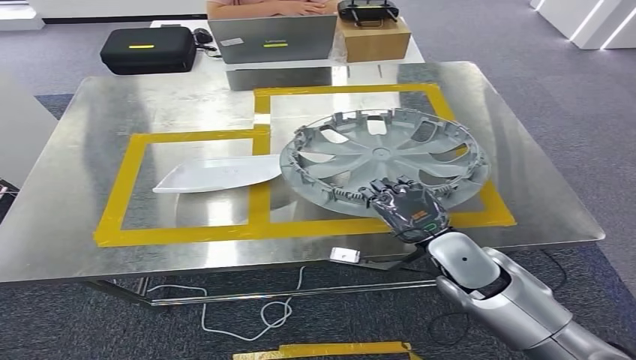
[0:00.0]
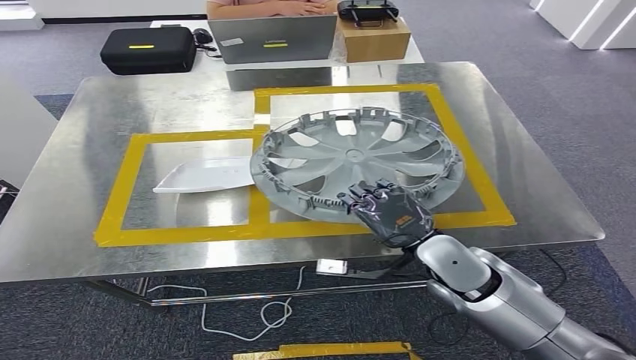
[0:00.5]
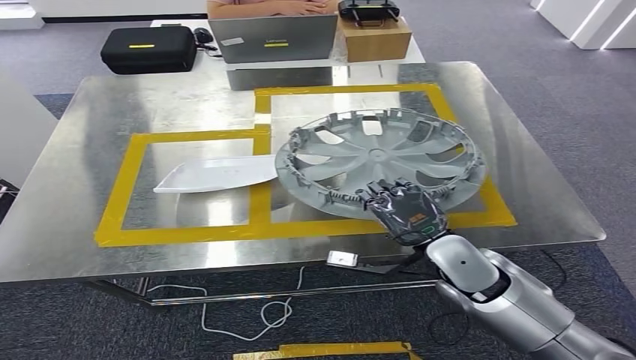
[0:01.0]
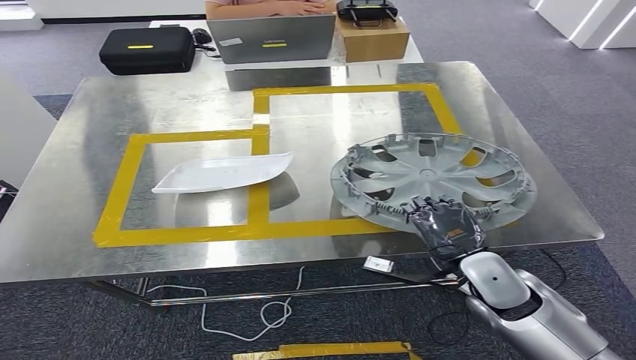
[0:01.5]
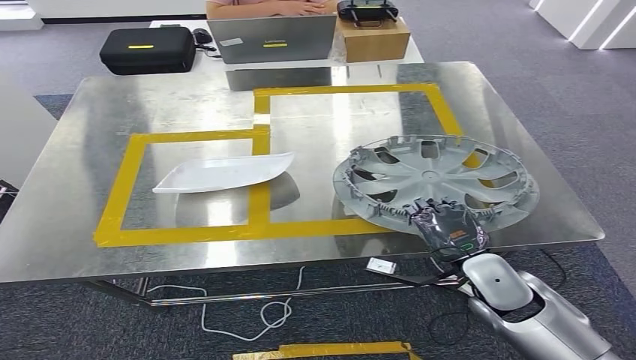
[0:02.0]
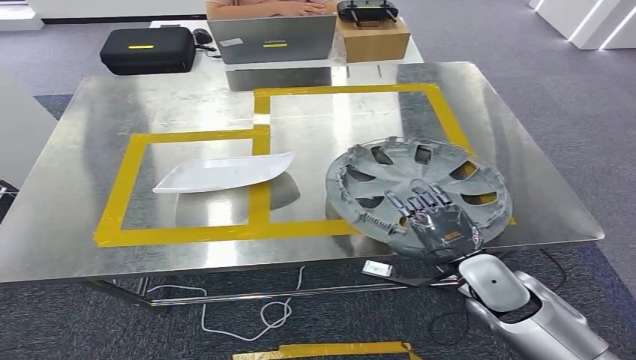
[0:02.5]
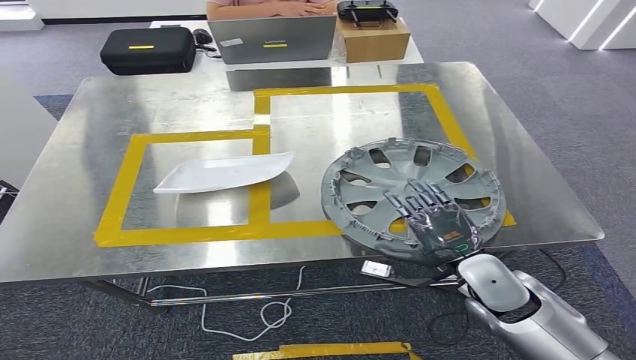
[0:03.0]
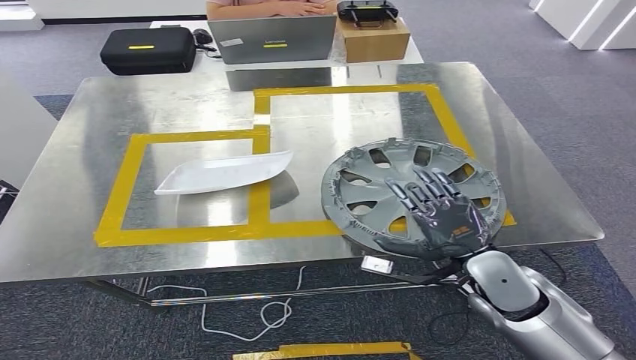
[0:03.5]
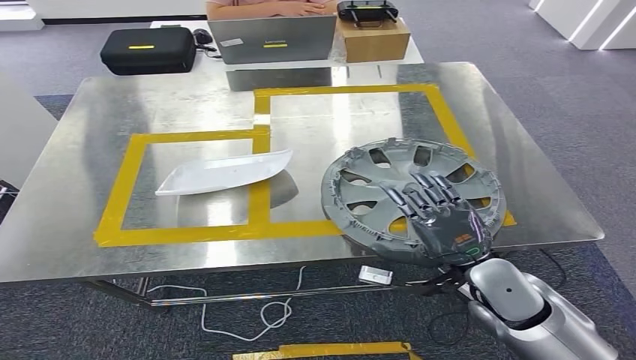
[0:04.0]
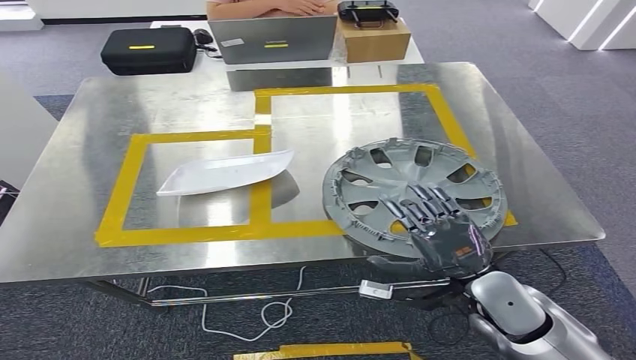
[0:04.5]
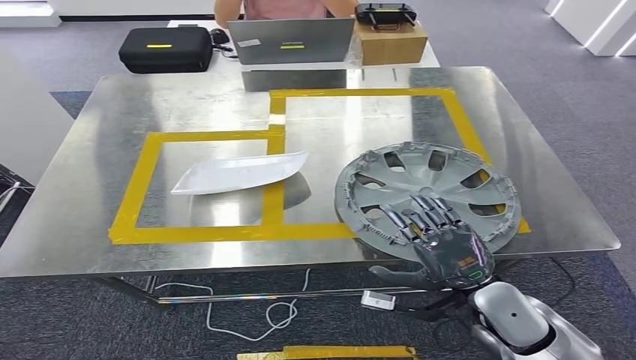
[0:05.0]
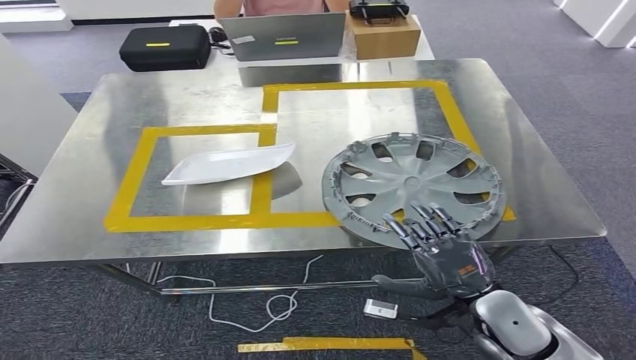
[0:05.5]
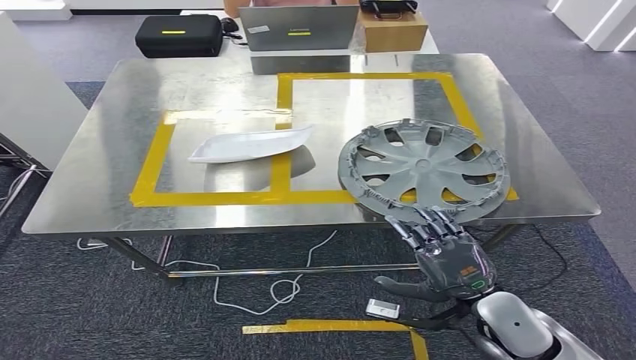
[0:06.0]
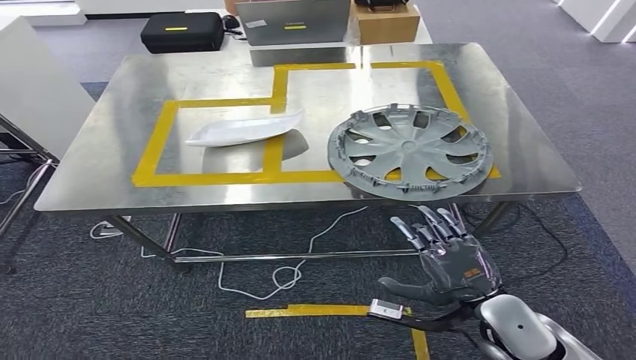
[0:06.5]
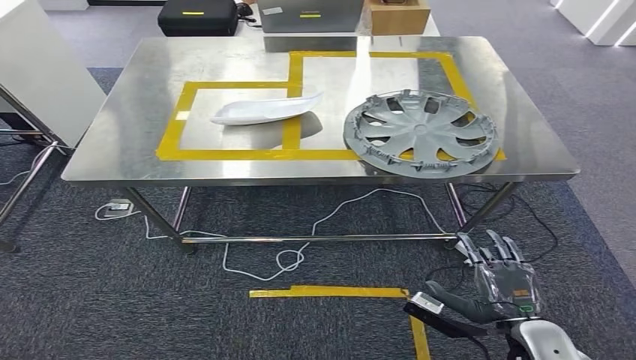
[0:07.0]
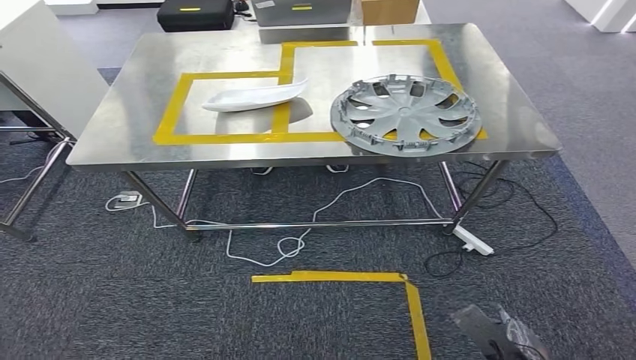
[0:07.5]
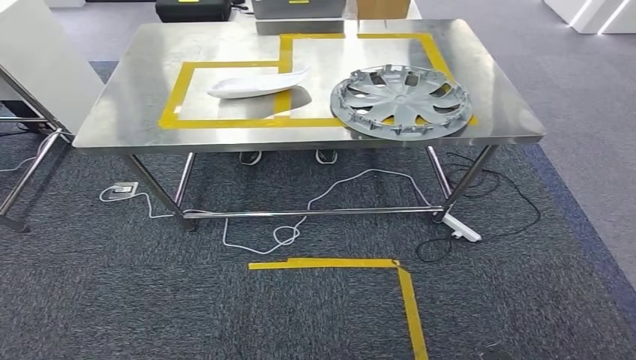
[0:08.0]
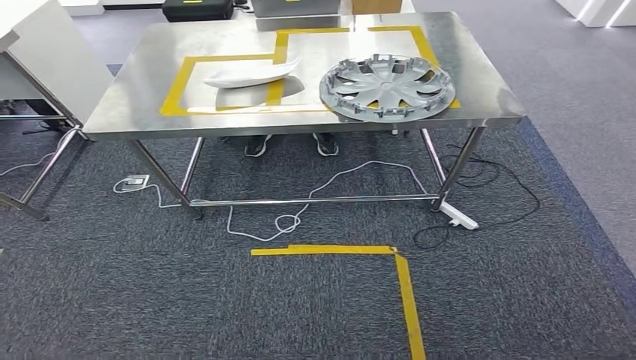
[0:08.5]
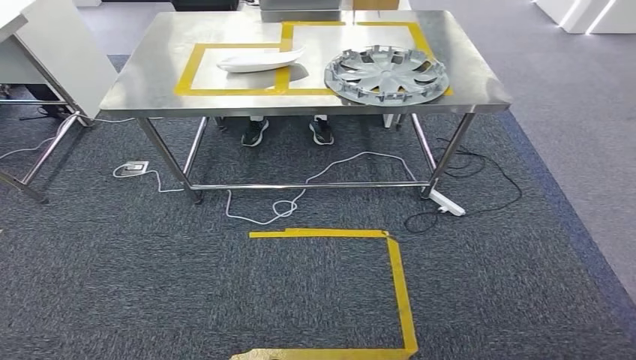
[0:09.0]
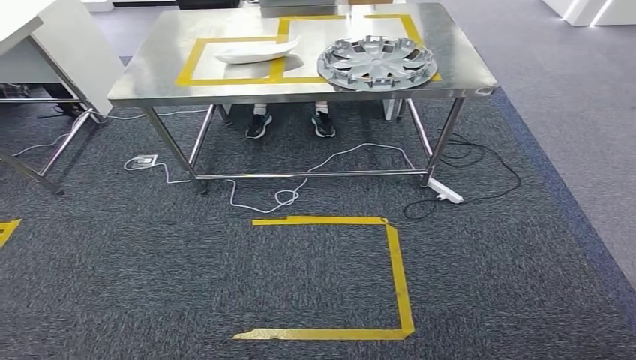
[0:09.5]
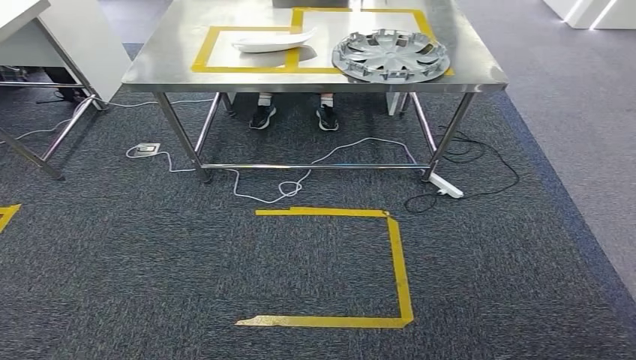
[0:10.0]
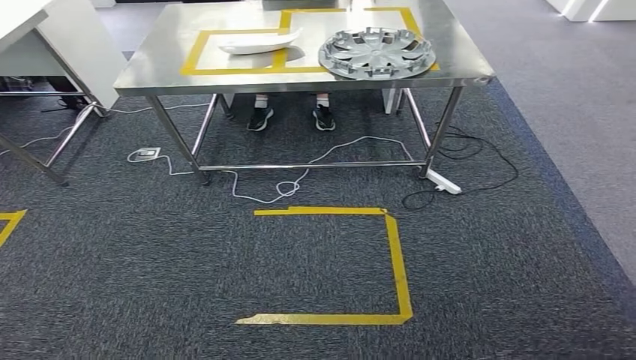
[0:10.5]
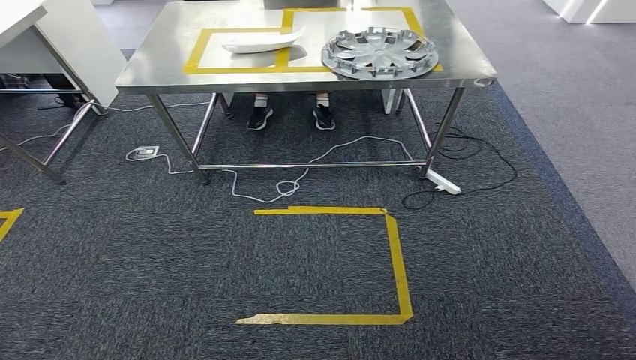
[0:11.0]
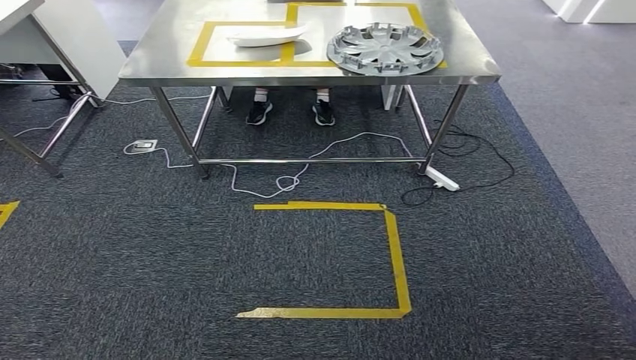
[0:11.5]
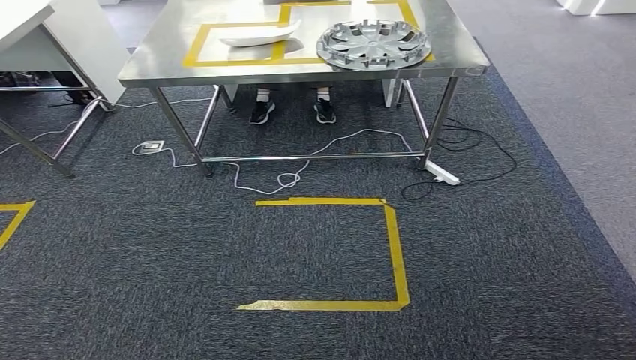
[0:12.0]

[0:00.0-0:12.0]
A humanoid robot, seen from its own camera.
0:00.0 to 0:02.0: The right hand changes place by about 5 cm.
0:02.0 to 0:04.0: The hands make only small movements.
0:10.0 to 0:12.0: The hands stay close to where they were, moving slightly.

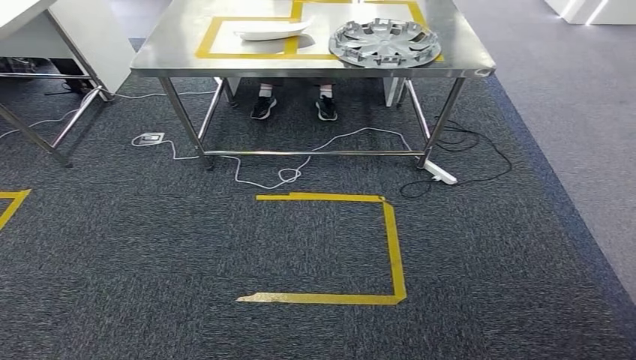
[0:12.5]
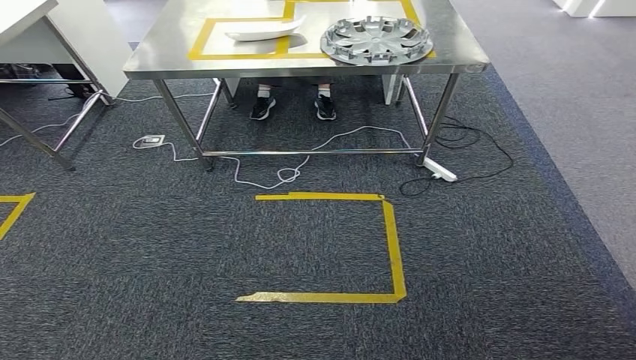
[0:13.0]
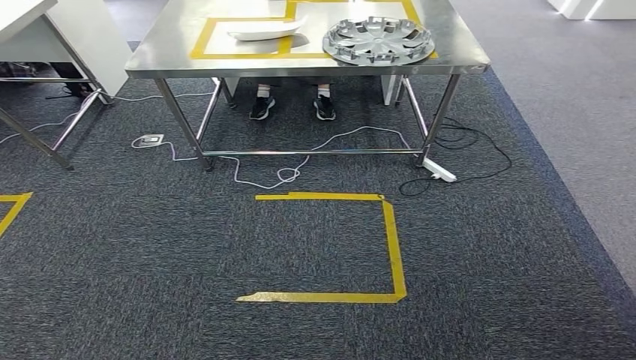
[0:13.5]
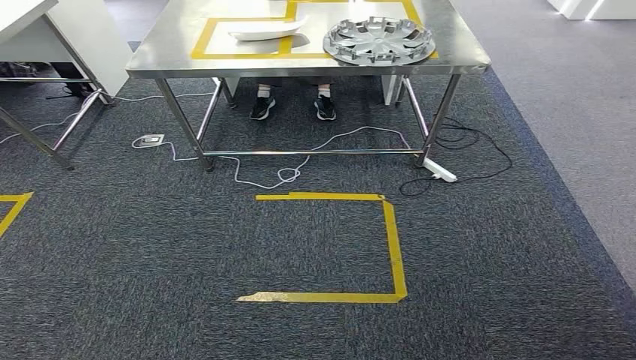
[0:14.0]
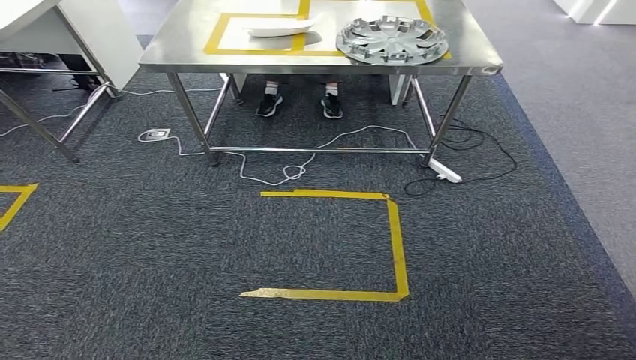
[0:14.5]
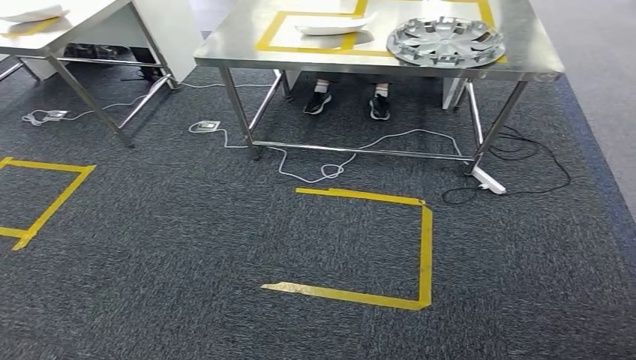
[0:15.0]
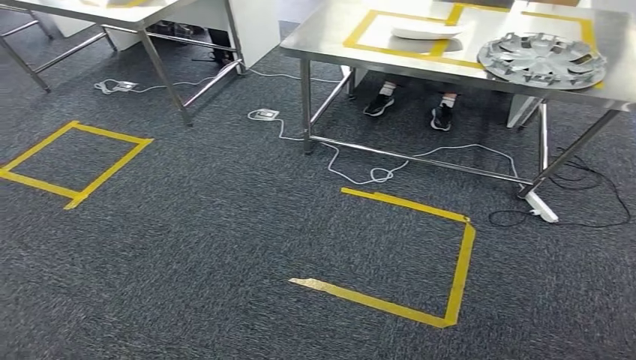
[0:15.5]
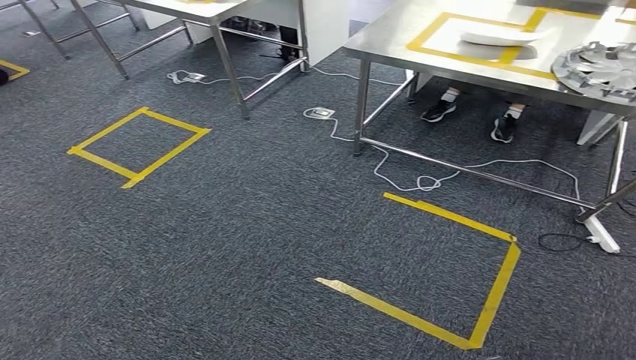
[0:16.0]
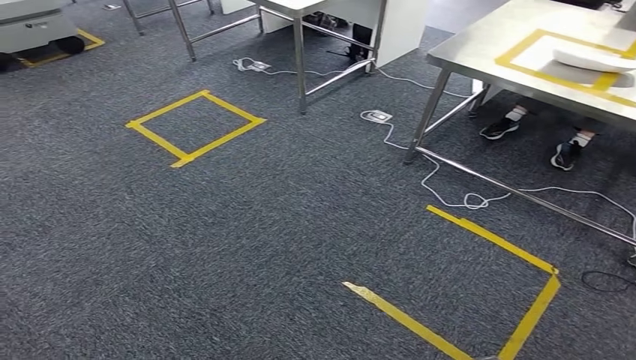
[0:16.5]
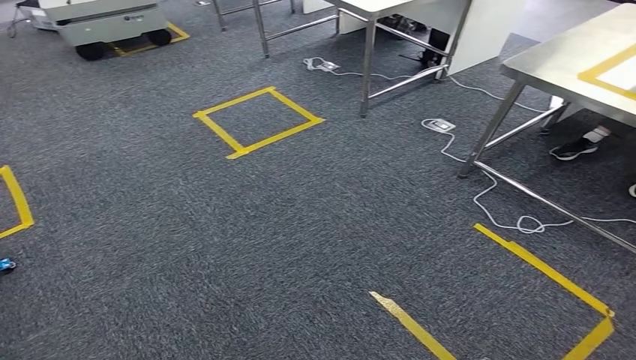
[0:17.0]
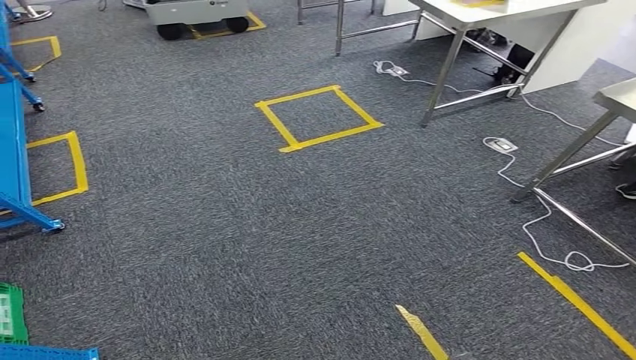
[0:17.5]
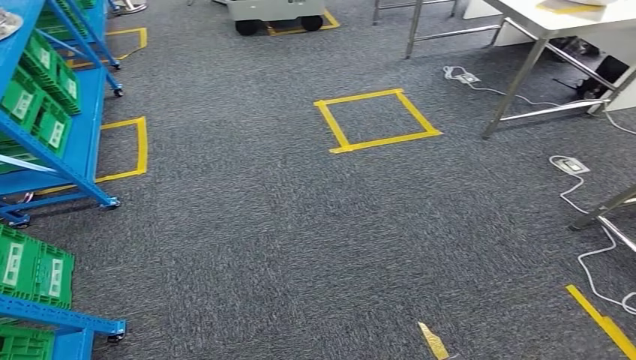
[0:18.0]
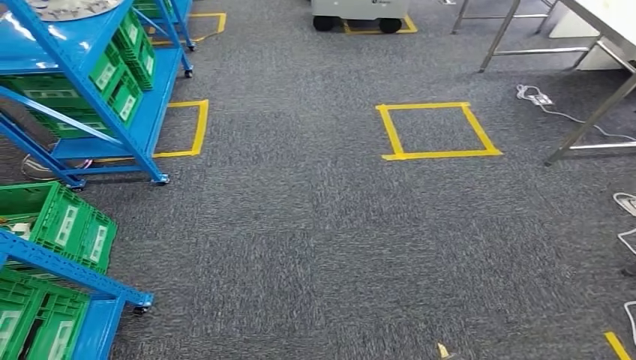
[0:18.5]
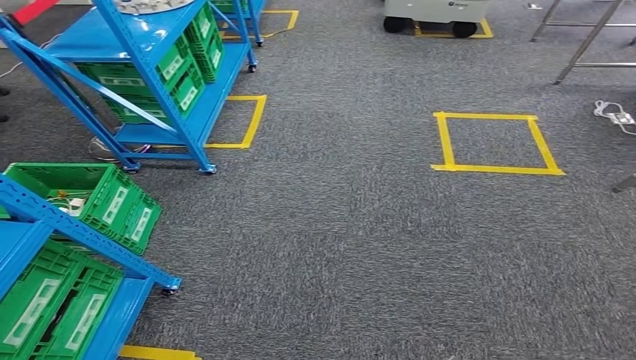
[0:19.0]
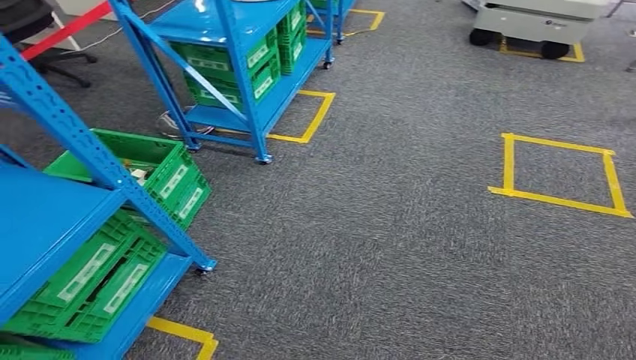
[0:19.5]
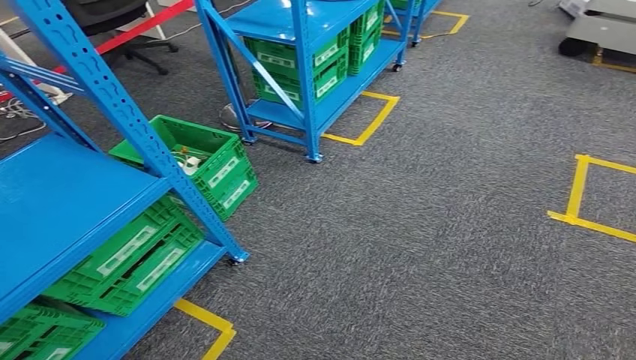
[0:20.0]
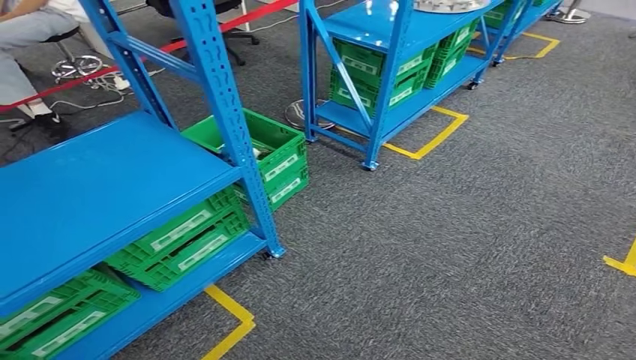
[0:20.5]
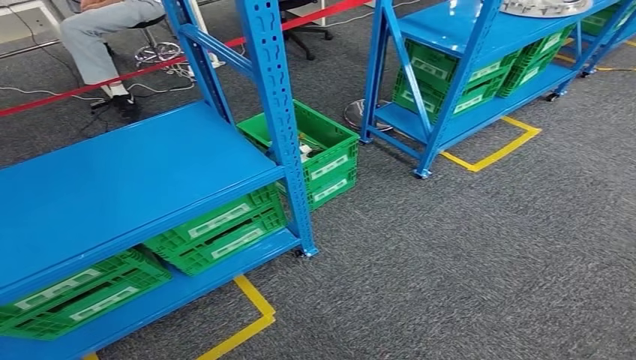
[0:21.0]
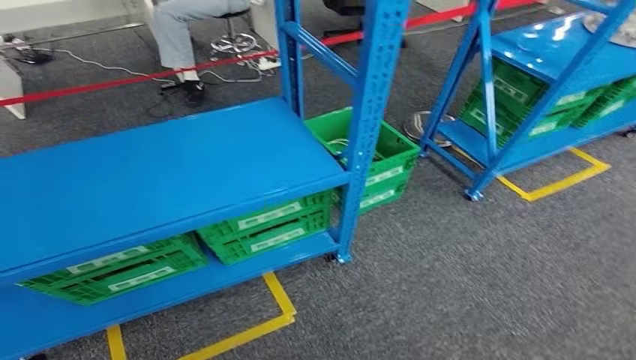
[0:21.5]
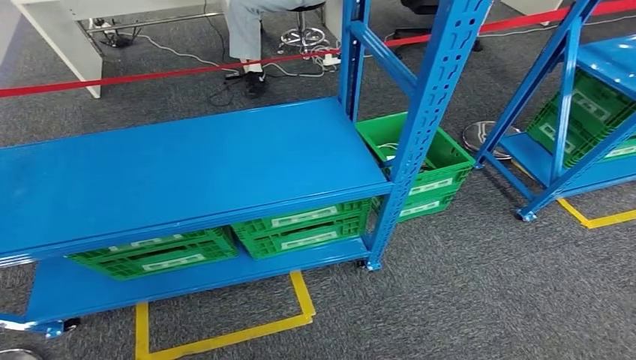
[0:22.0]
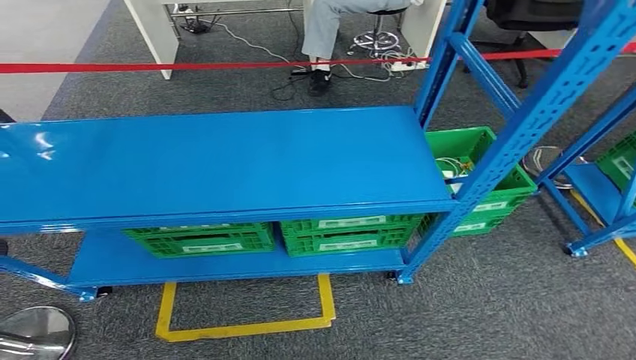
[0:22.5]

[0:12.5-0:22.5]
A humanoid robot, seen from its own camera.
0:12.5 to 0:14.5: There are only small adjustments of the hands.
